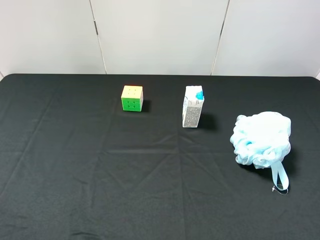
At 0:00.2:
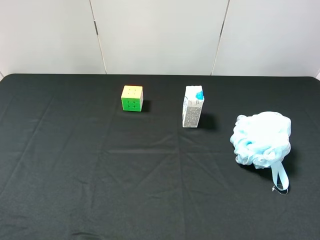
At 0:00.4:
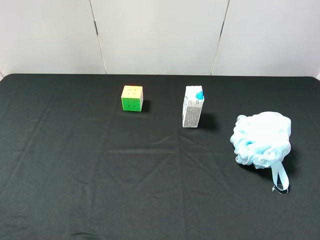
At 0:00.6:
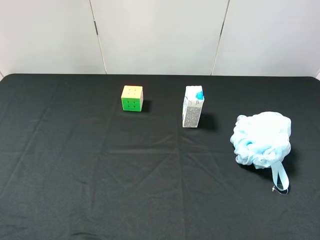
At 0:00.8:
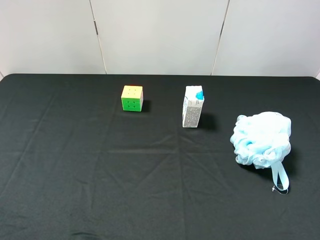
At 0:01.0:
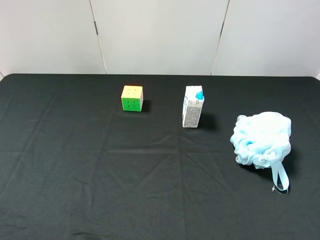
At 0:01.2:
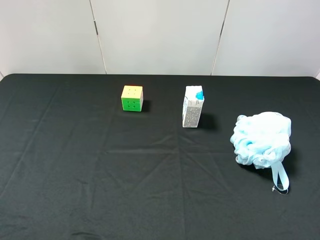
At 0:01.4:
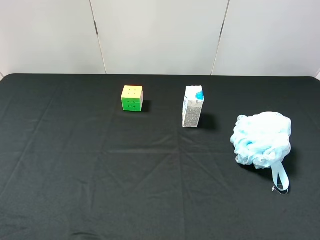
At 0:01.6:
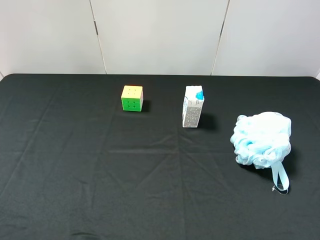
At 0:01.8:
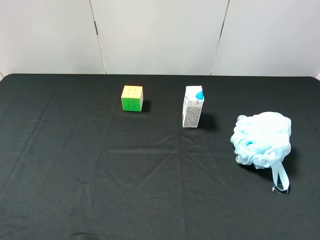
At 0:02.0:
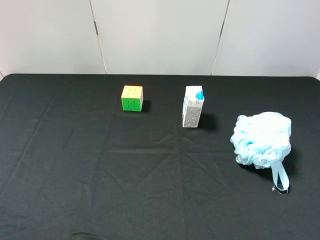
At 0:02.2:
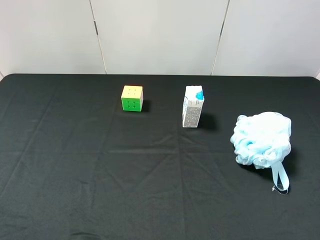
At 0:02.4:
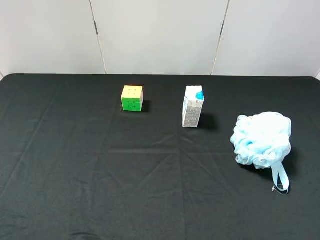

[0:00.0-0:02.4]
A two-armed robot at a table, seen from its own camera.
Task of the whole recording: use the left gripper to pick up the item and transfer it from the left gripper to the right gripper.
0:01.2 to 0:02.4: Both grippers stay put.

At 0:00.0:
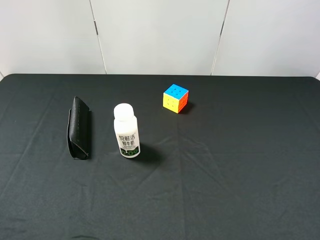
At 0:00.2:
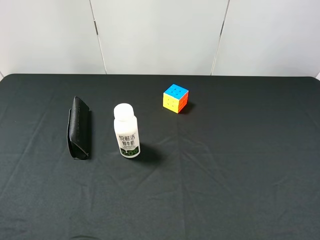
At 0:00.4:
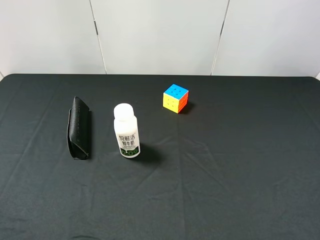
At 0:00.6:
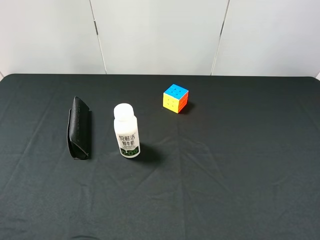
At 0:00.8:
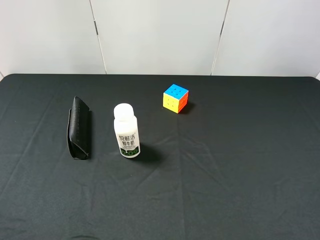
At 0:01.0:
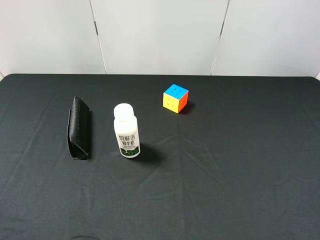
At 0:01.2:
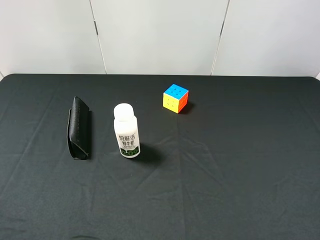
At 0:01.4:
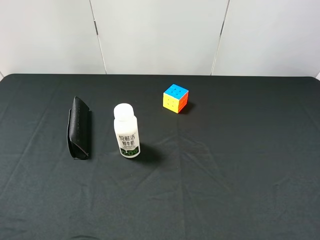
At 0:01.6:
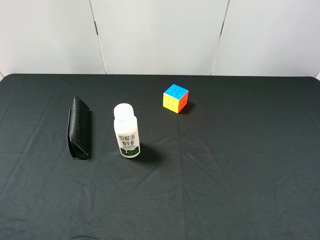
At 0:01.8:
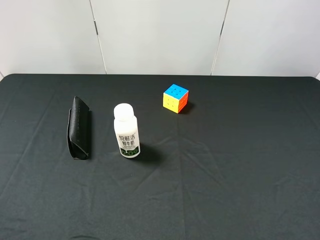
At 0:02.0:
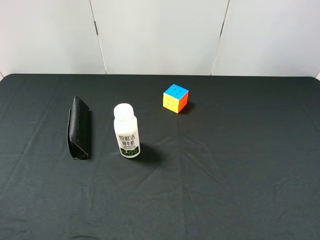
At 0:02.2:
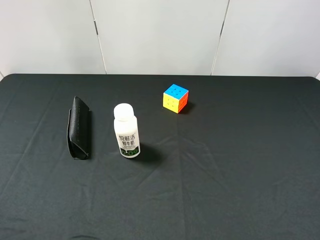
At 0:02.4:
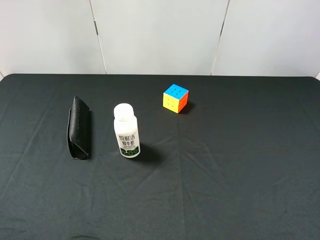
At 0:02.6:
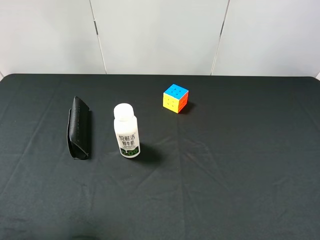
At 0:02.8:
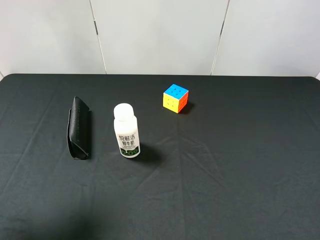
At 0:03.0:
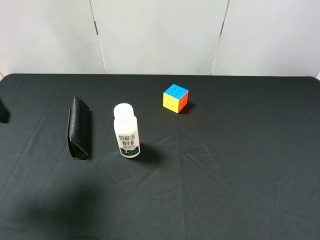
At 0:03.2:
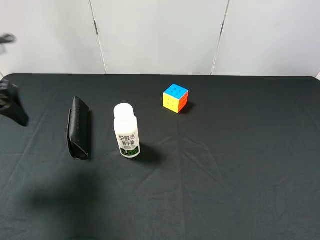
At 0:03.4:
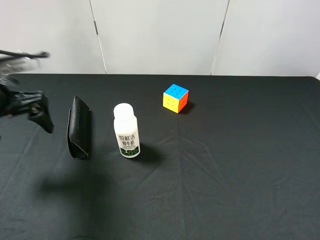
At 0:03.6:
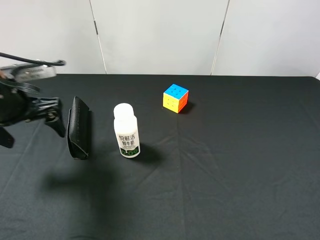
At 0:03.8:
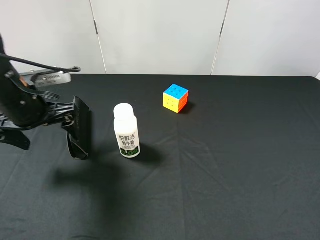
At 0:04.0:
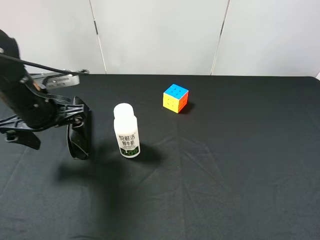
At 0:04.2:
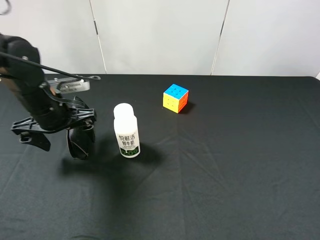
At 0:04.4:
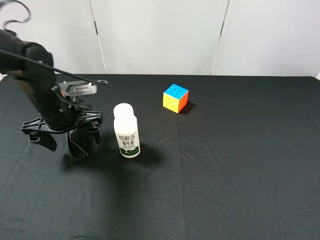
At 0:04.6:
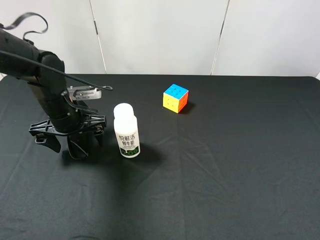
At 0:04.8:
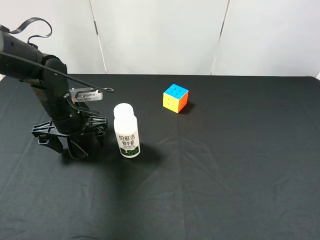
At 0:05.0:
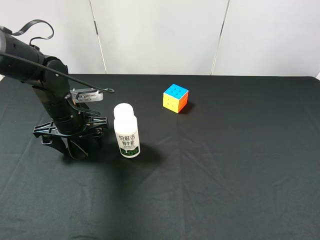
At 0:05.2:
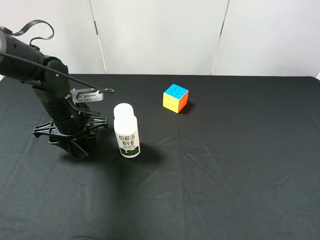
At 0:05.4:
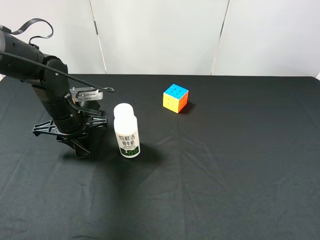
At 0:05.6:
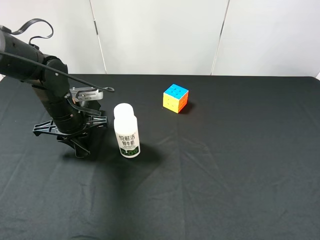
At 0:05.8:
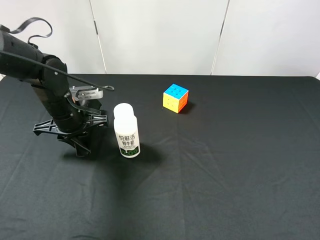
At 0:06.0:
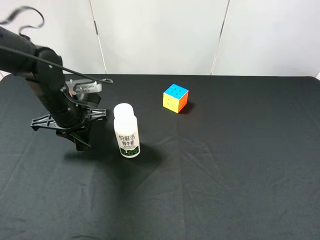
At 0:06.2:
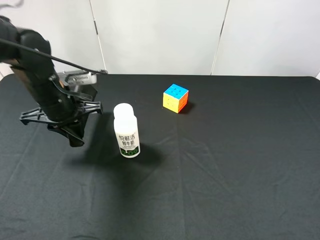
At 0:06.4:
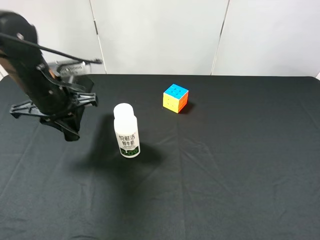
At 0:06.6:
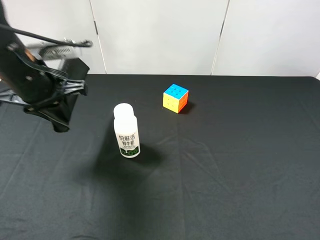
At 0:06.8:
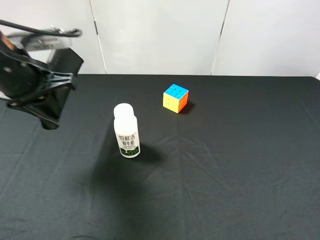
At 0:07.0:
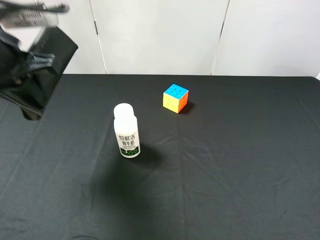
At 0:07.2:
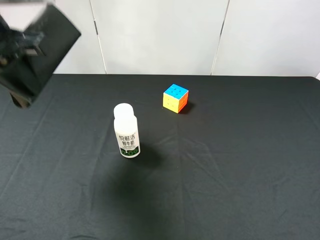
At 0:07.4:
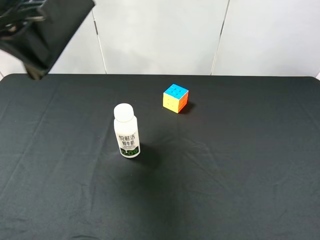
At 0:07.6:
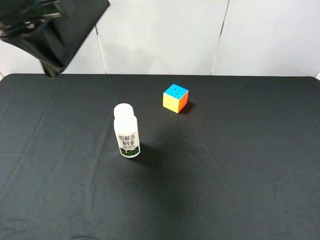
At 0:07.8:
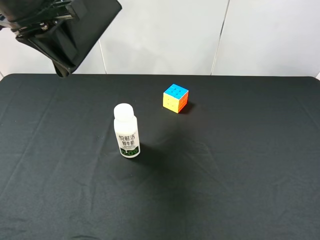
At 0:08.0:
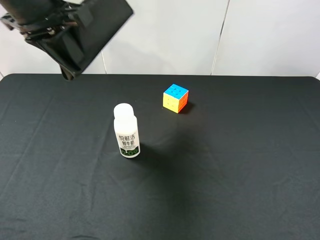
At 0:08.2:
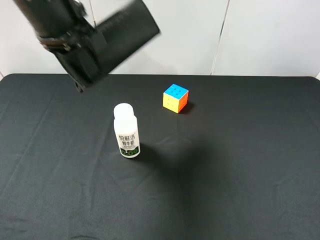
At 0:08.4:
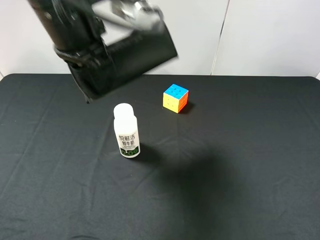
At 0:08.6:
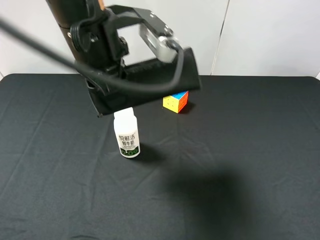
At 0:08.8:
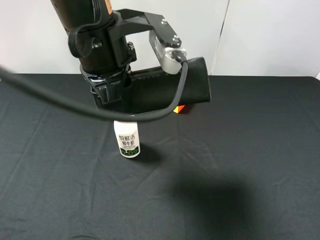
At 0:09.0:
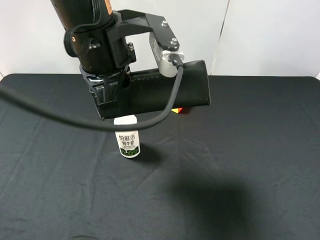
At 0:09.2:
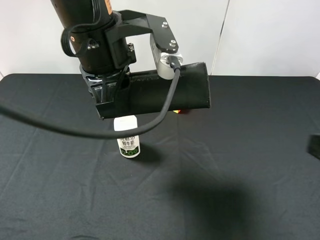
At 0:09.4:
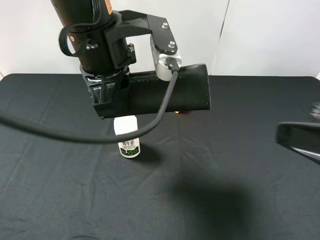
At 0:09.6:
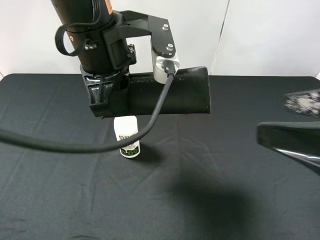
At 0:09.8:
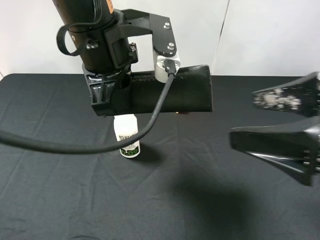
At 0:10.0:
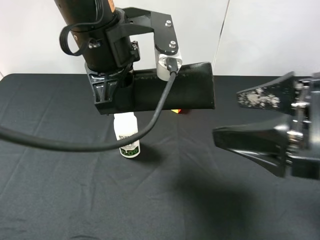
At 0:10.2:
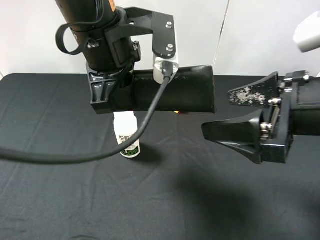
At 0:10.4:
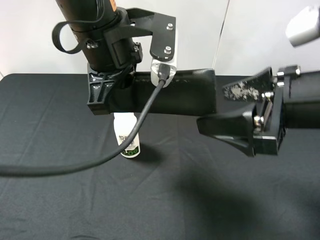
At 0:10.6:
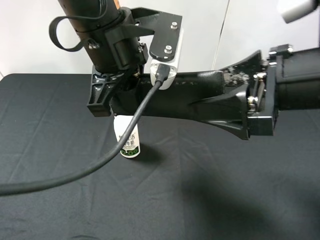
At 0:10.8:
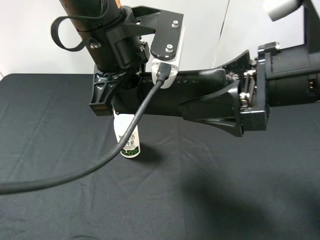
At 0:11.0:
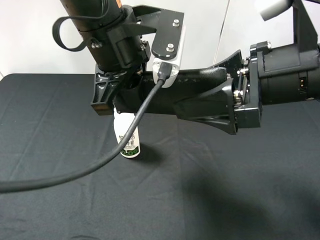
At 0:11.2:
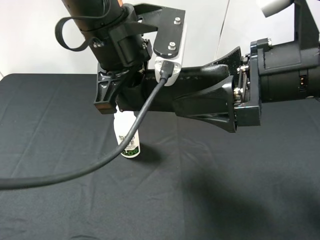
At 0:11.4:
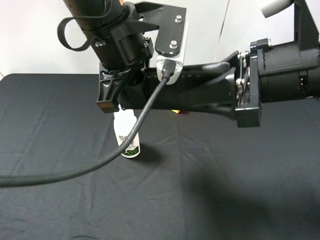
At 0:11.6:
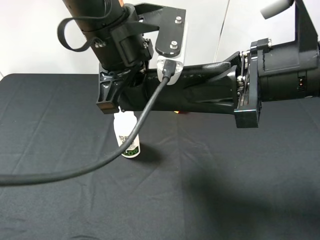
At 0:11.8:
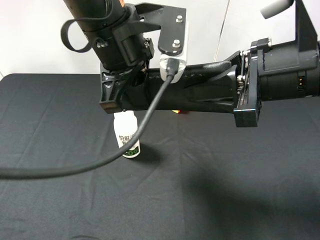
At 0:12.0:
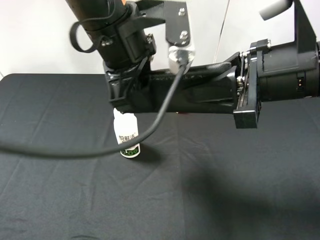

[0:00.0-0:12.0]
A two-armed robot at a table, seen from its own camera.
Task of the whole recording: use the left gripper to pick up the item and transfer it from the left gripper to the right gripper.
0:00.0 to 0:01.6: Both grippers stay put.
0:01.6 to 0:03.0: The left gripper heads forward, covering approximately 20 cm.
0:03.0 to 0:04.4: The left gripper is displaced downward, to the right and forward by about 20 cm.
0:04.4 to 0:06.0: The left gripper closes.
0:06.0 to 0:07.6: The left gripper shifts approximately 20 cm upward.
0:07.6 to 0:09.0: The left gripper goes roughly 15 cm to the right and downward.
0:09.0 to 0:10.4: The right gripper is displaced forward and to the left by approximately 15 cm.
0:10.4 to 0:12.0: The right gripper closes; the left gripper opens.

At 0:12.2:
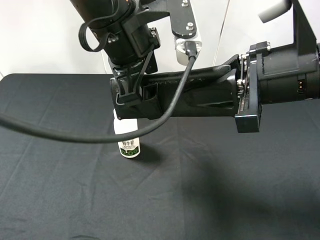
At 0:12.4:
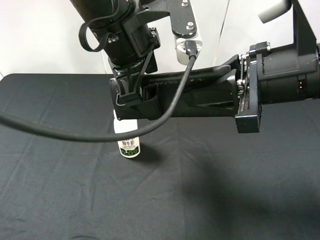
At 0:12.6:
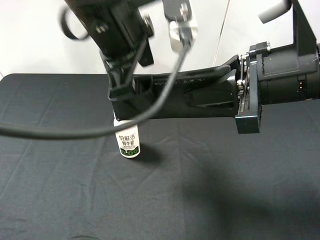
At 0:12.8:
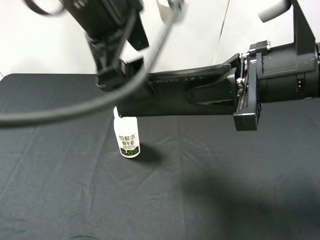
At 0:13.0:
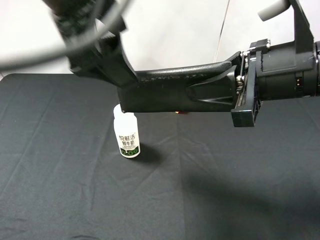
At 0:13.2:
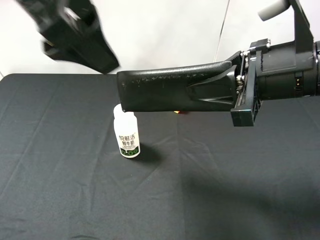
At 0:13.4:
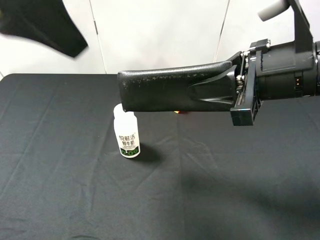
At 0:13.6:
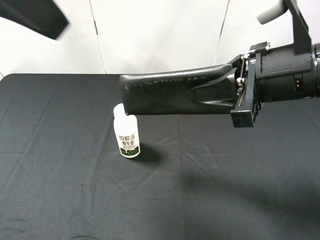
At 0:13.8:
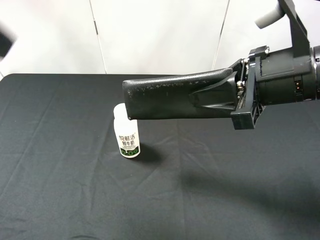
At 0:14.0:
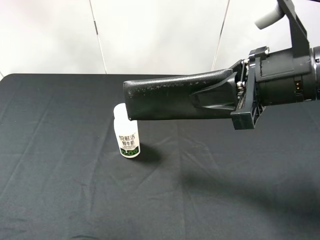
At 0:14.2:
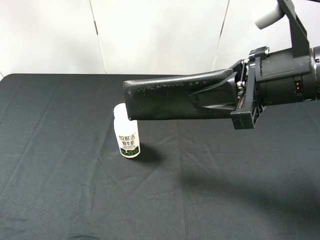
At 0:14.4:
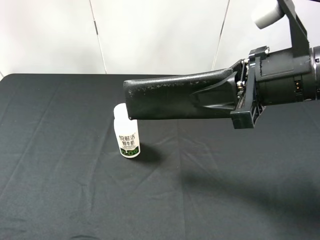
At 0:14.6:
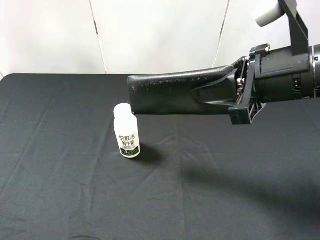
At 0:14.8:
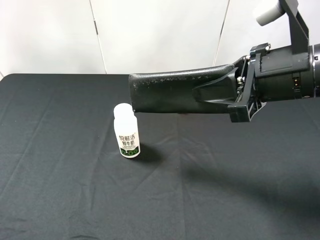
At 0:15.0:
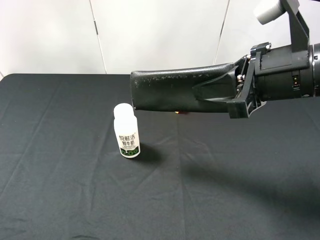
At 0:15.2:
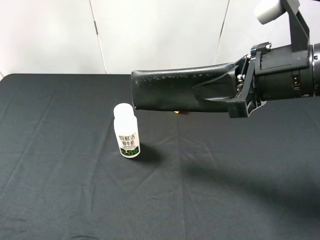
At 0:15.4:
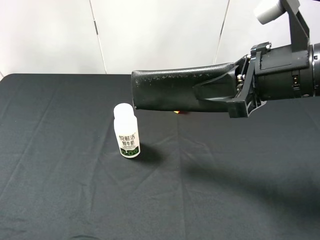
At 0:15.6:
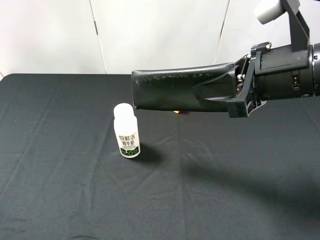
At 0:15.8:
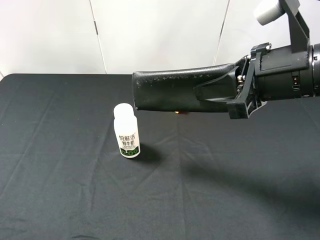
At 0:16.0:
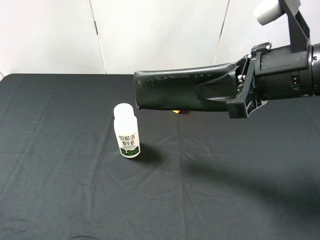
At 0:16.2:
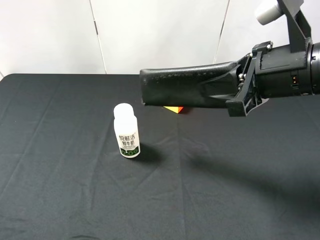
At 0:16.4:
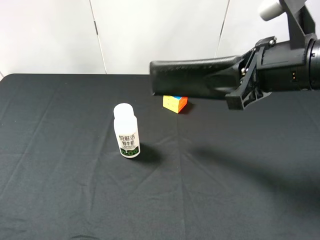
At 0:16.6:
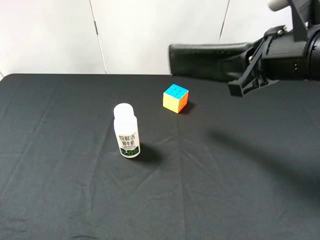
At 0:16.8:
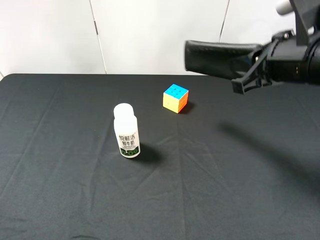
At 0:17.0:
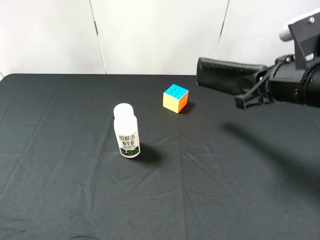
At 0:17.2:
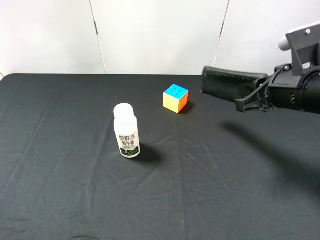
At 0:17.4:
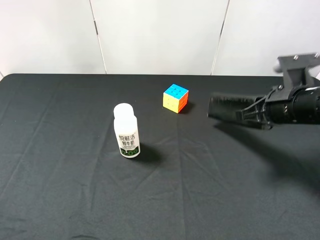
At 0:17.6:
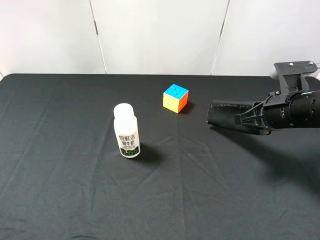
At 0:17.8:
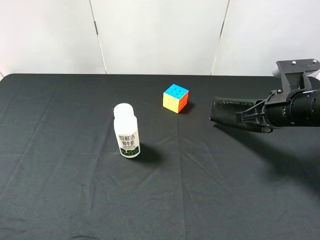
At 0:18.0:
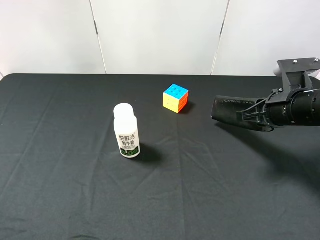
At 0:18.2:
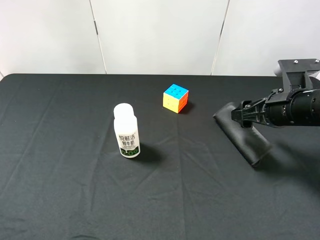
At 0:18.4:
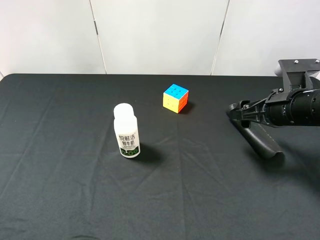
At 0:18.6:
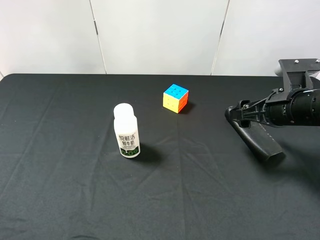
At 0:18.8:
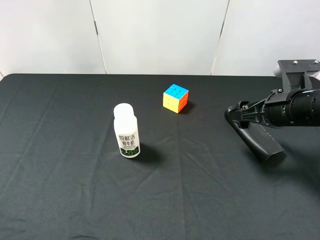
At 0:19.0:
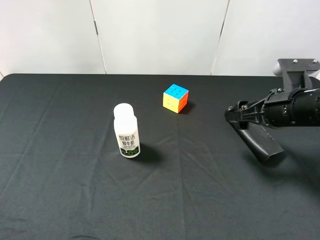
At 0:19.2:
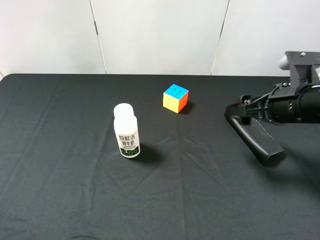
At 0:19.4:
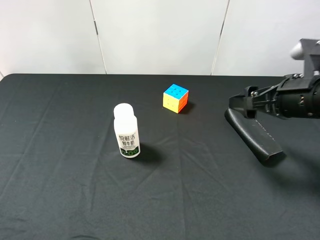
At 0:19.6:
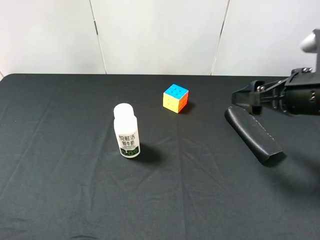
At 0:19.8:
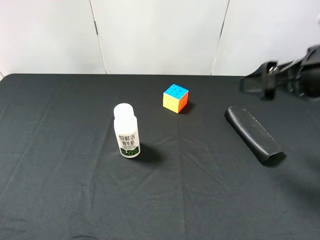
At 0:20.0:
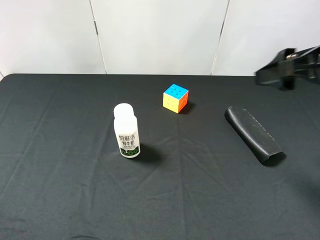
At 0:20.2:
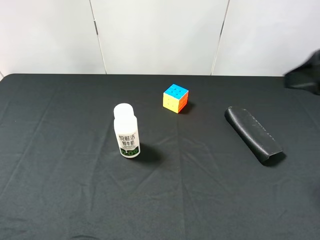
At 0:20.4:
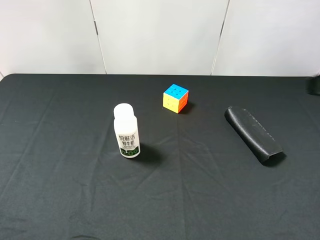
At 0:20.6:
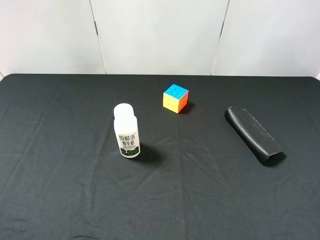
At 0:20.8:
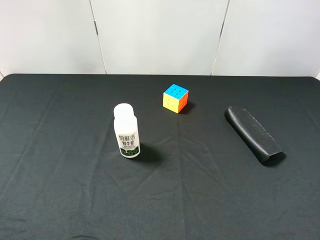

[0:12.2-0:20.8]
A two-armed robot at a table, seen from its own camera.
Task of the whole recording: use the left gripper to pick up the item and transfer it from the left gripper to the right gripper.
0:12.2 to 0:13.6: The left gripper shifts some 20 cm upward, to the left and backward.
0:13.6 to 0:15.0: The left gripper heads downward, to the left and backward, covering some 25 cm.
0:16.6 to 0:18.0: The right gripper is displaced downward and to the right by some 10 cm.
0:18.0 to 0:19.4: The right gripper ends up roughly 5 cm from where it was, and opens up.
0:19.4 to 0:20.8: The right gripper travels backward and upward by some 20 cm.
